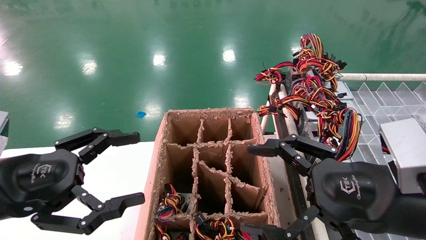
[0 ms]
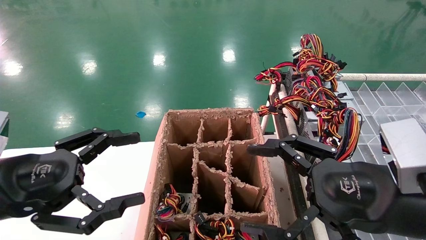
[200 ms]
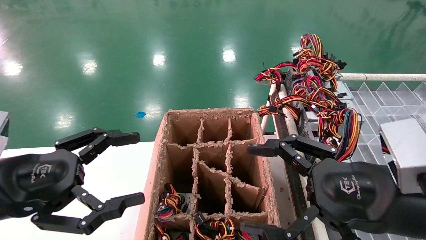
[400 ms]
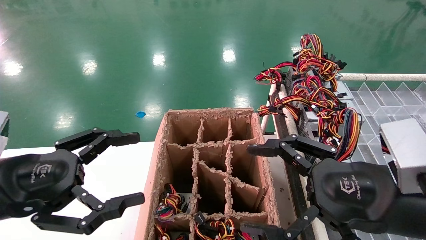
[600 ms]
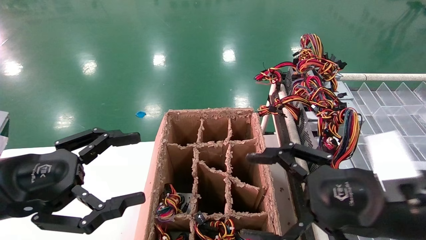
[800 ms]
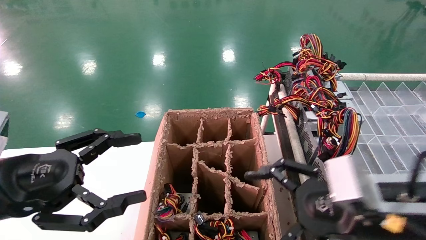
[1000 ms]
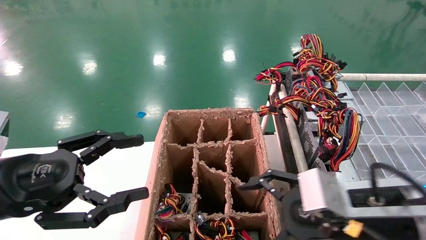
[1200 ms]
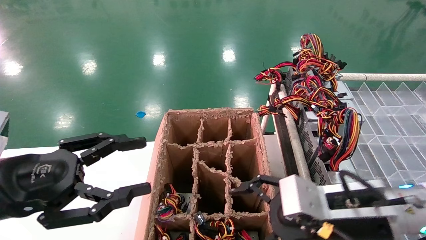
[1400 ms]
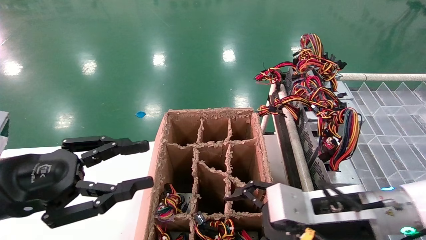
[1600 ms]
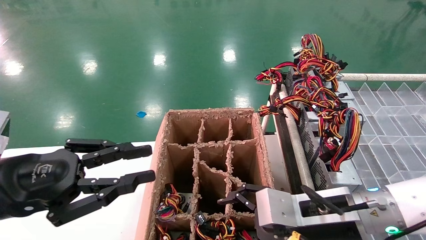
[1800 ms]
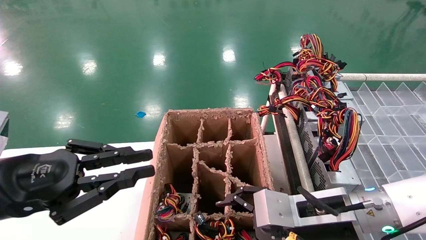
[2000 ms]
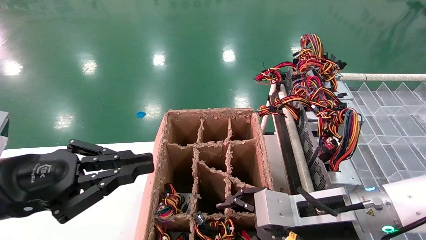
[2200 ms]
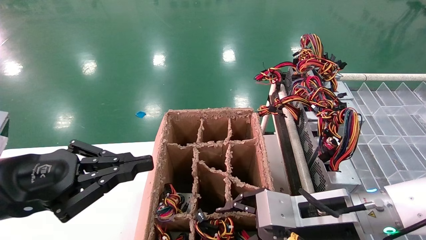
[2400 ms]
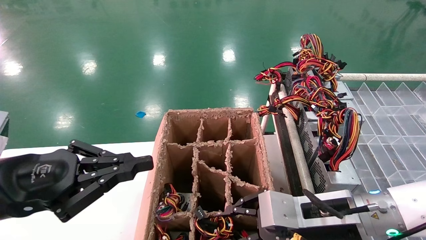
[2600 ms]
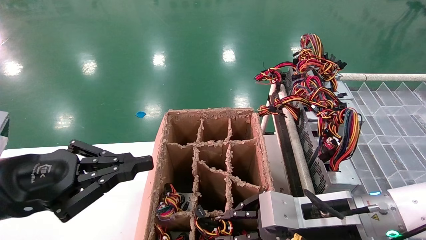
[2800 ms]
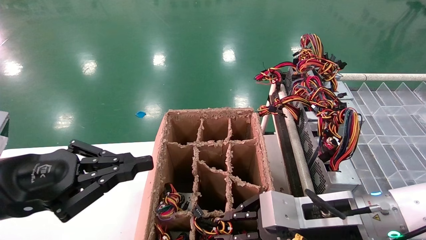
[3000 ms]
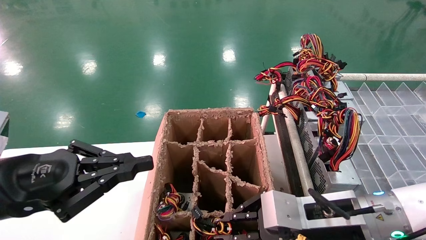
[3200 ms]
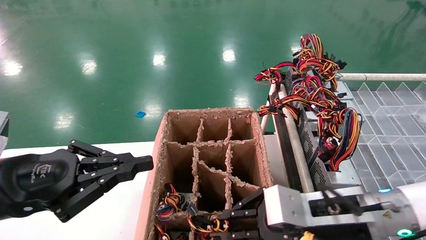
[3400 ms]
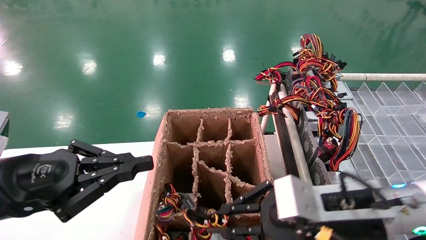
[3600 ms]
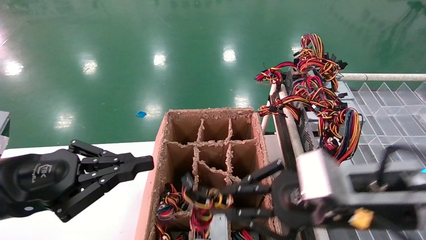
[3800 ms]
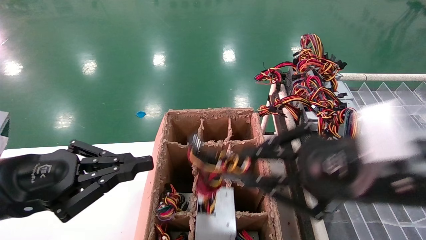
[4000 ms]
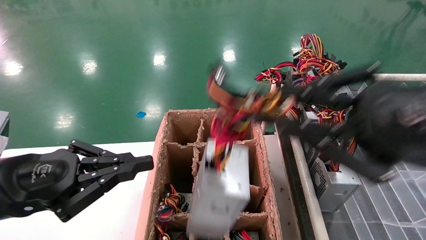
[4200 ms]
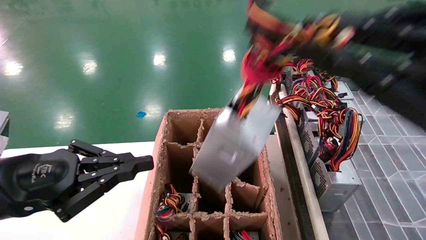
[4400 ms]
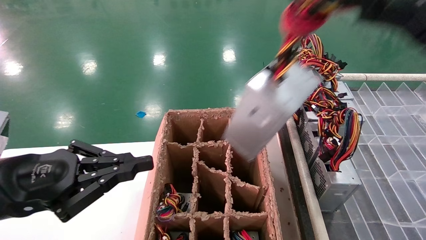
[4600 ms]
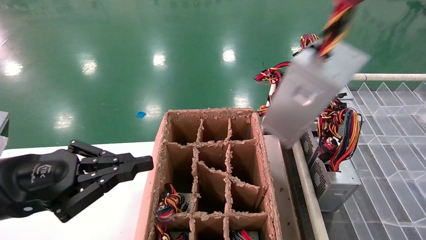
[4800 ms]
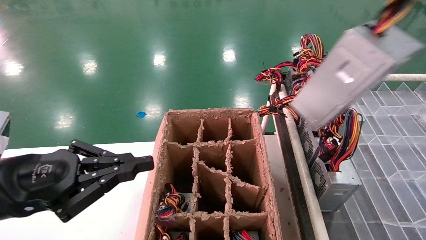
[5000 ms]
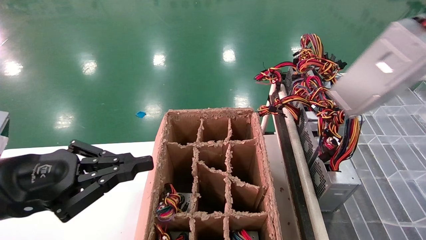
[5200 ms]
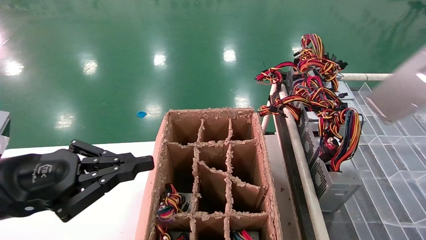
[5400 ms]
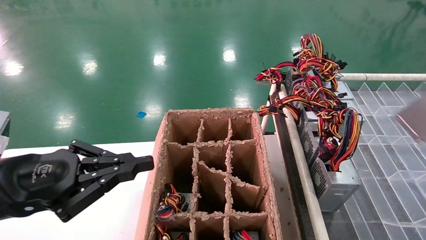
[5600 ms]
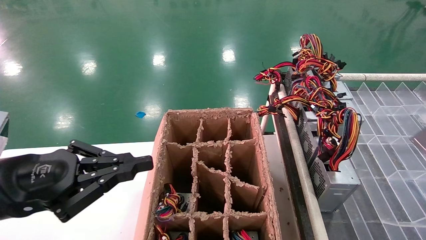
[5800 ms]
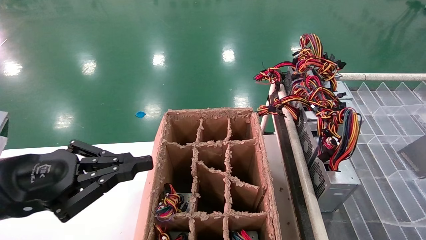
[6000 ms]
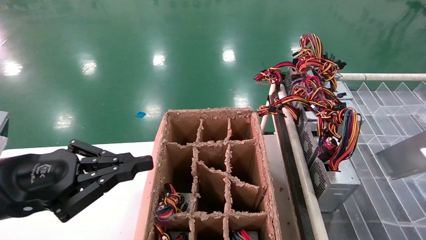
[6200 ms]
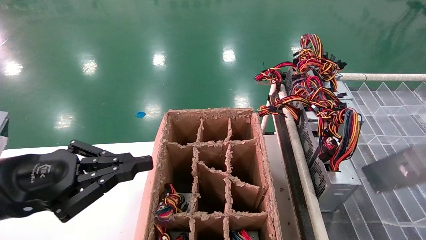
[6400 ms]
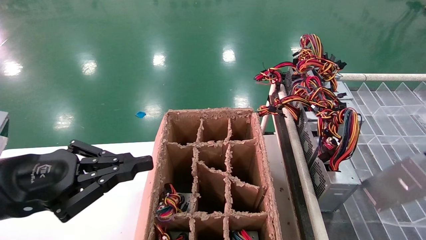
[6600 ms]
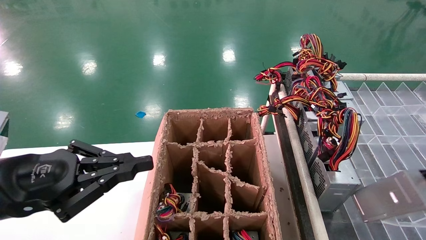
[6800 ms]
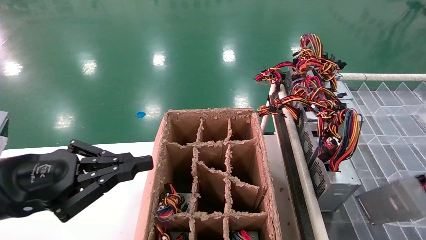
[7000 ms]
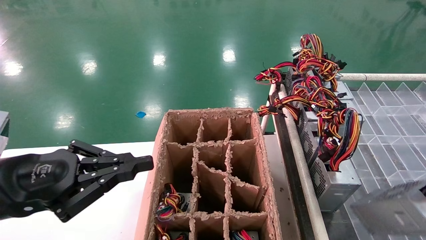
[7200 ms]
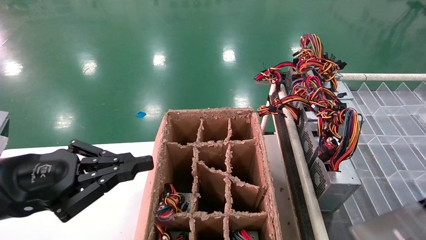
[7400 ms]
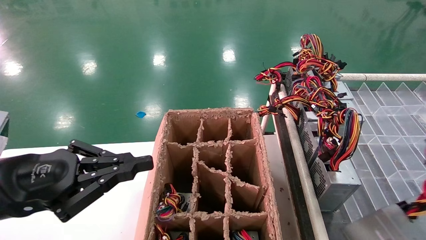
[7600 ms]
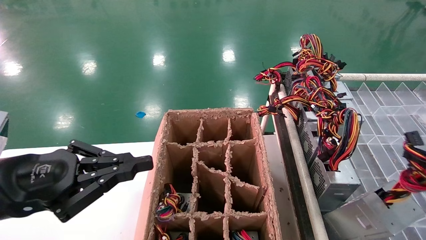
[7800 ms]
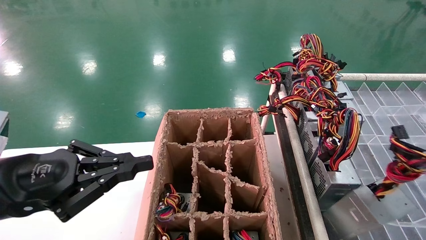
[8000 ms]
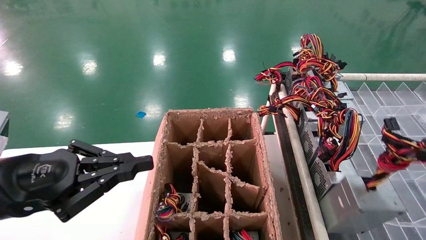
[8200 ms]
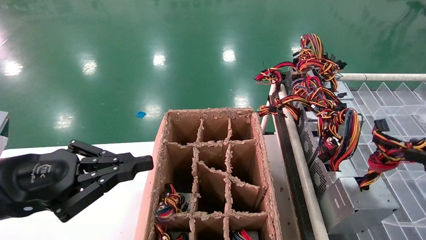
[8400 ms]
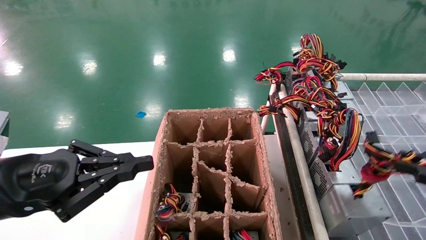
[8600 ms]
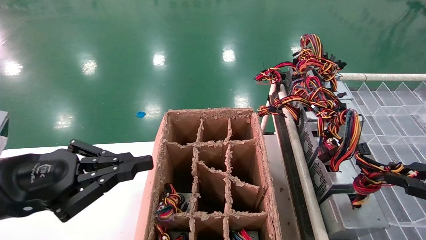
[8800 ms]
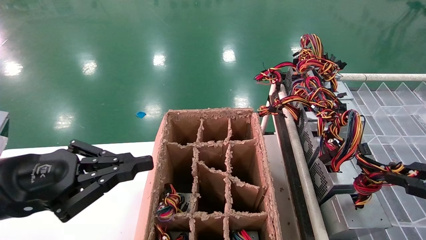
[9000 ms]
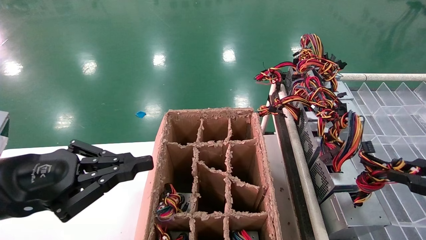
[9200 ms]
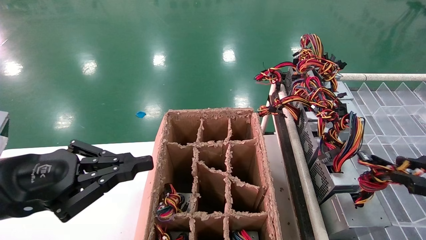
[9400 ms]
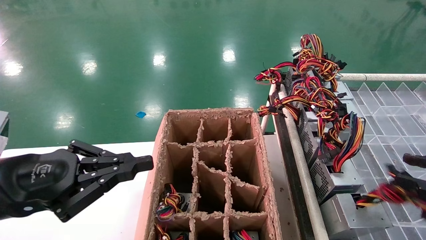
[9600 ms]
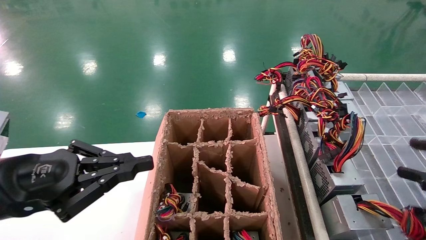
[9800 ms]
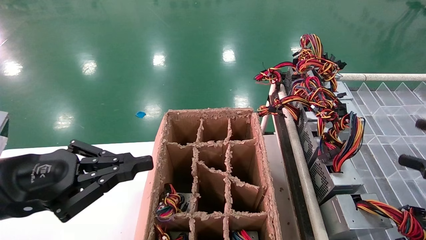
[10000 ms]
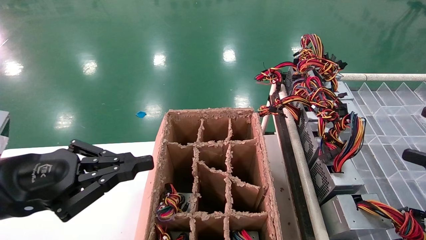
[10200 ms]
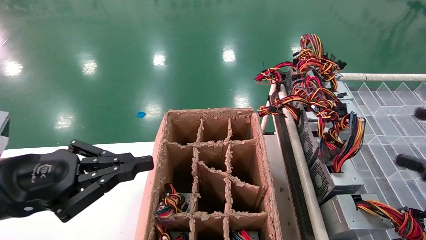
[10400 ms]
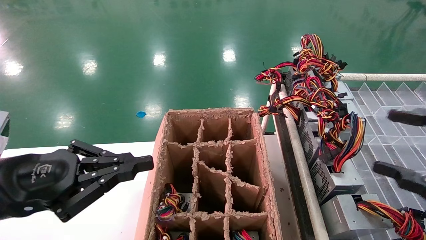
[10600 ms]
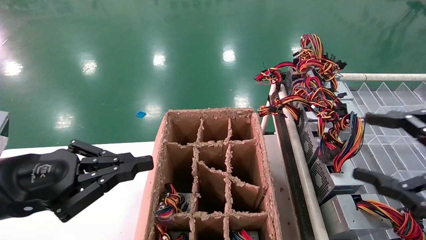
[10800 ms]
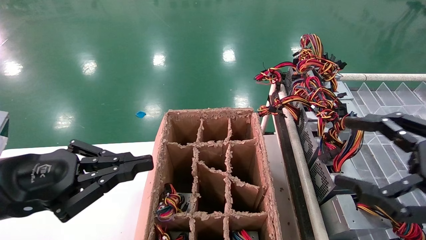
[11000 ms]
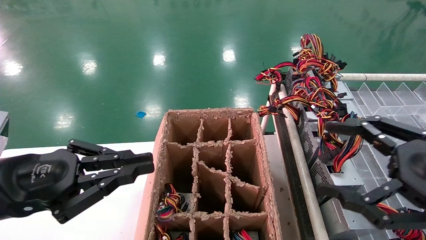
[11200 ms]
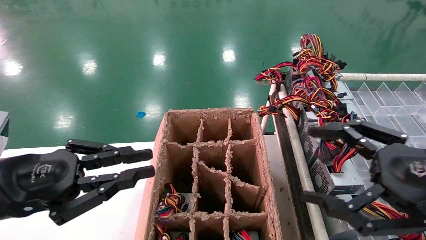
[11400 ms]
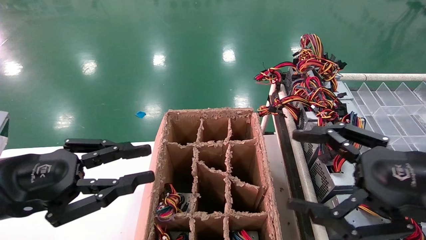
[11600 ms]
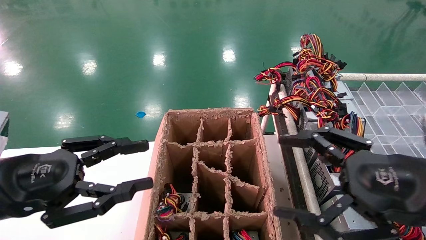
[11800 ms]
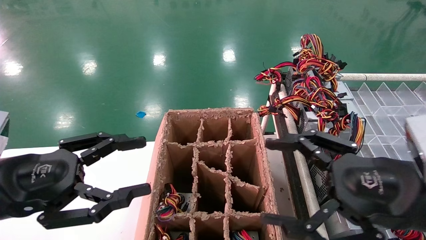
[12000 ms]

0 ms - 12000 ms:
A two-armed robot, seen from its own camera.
Step, 1200 ms - 3200 ms: Grab the main unit power supply from the containment box.
Step, 3400 ms - 9800 ms: Place the main unit power supply in the designated area.
0 ms - 1600 ms: The right gripper heads downward and forward, covering roughly 10 cm; the left gripper closes.
1600 ms - 3000 ms: The right gripper closes, while the left gripper closes up.
3000 ms - 4400 ms: The right gripper is displaced upward, backward and to the right by approximately 25 cm.
4400 ms - 6000 ms: The right gripper goes roughly 25 cm to the right and backward.
6000 ms - 7600 ms: The right gripper travels downward and to the left by roughly 10 cm.
7600 ms - 9000 ms: The right gripper goes roughly 5 cm forward.
9000 ms - 10400 ms: The right gripper opens its fingers.
10400 ms - 12000 ms: The right gripper travels to the left and forward by about 15 cm; the left gripper opens.

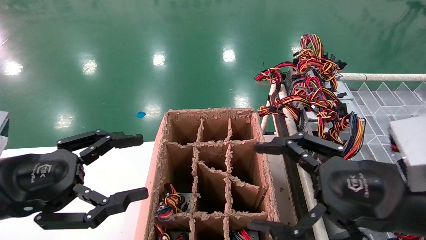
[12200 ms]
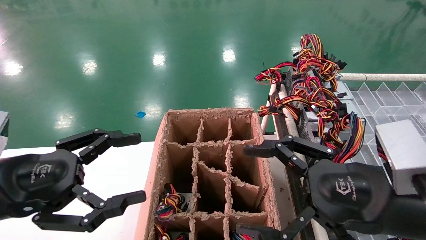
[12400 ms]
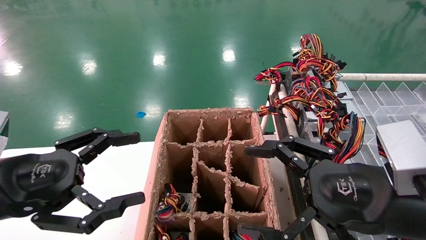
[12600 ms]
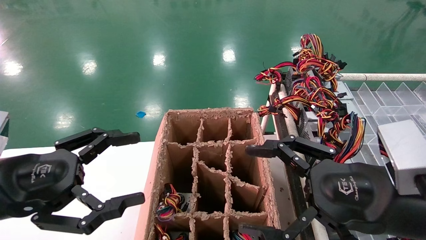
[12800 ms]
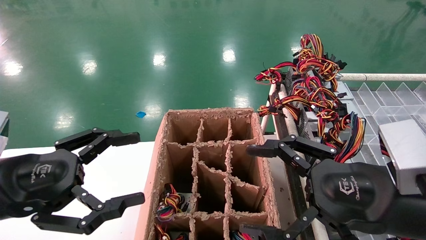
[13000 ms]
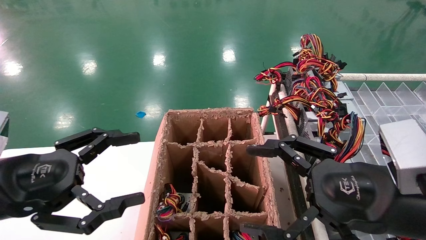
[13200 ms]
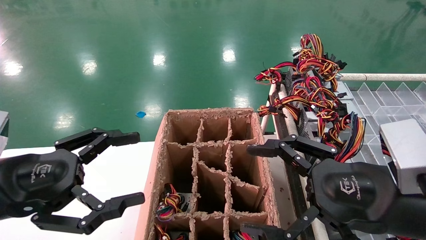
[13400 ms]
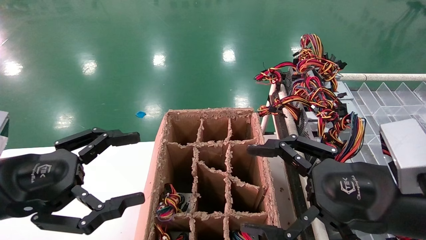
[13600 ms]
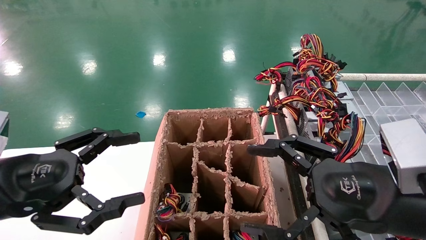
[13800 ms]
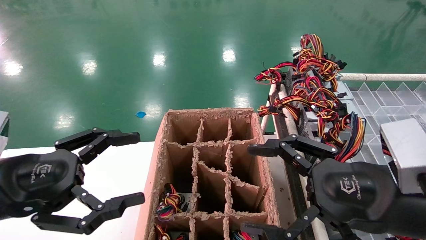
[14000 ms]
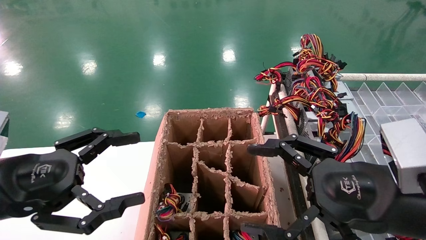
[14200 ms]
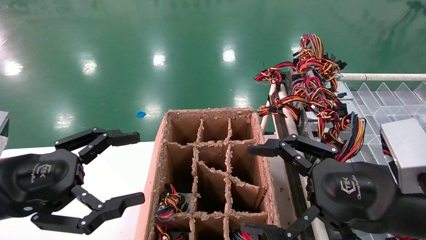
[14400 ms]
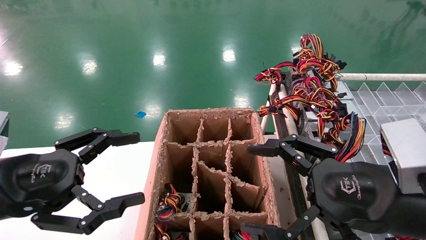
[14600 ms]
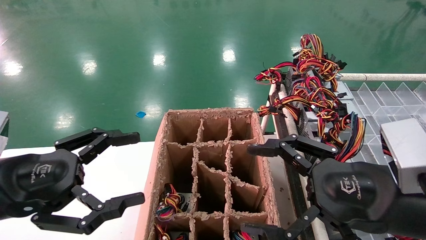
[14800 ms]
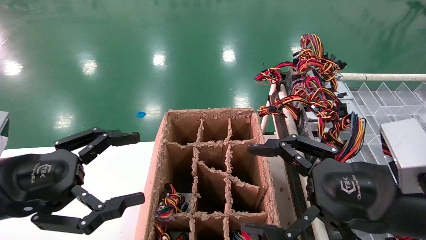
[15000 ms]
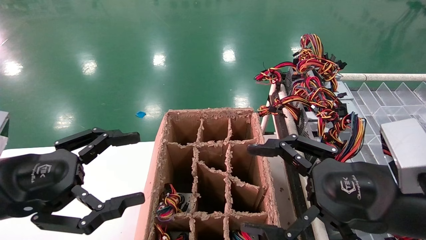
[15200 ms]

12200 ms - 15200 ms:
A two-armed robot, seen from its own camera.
12200 ms - 15200 ms: The two grippers keep their place.

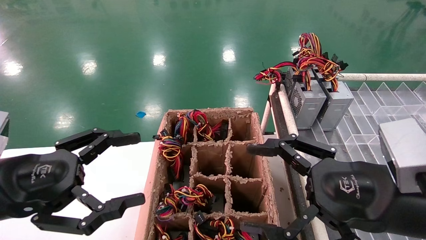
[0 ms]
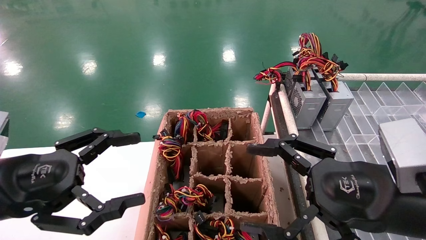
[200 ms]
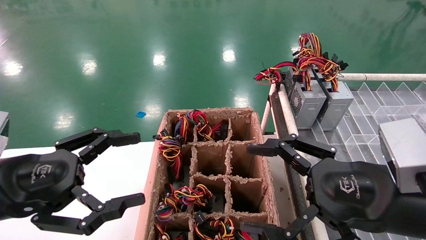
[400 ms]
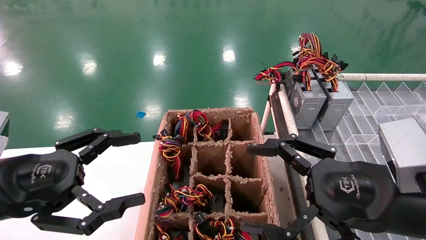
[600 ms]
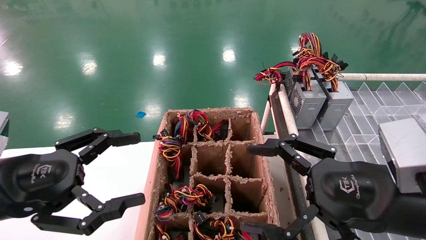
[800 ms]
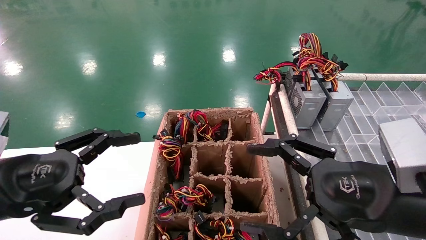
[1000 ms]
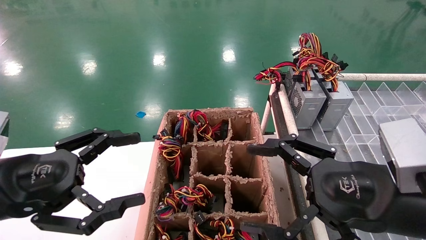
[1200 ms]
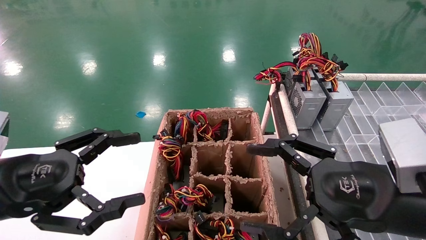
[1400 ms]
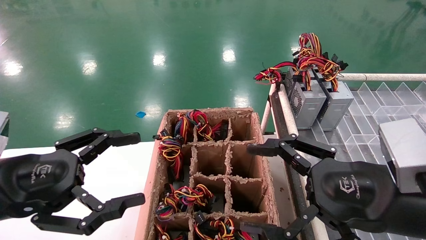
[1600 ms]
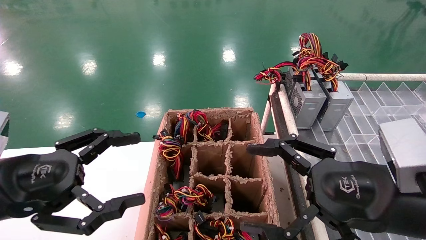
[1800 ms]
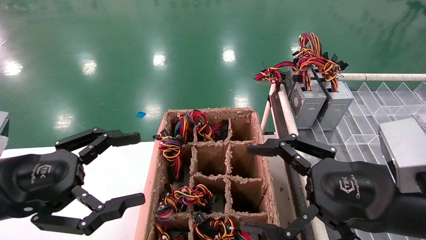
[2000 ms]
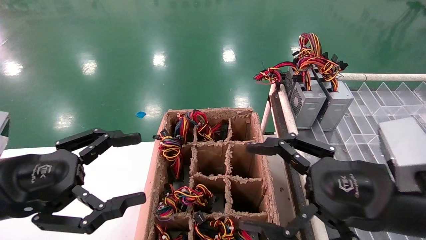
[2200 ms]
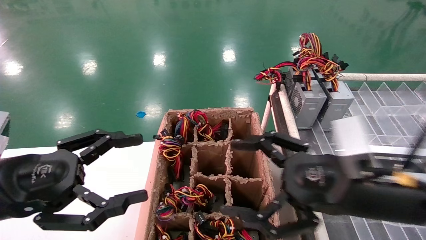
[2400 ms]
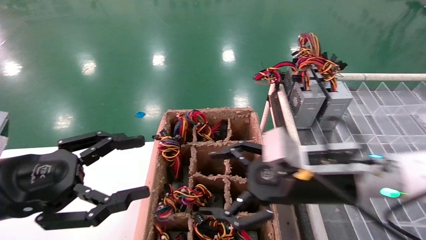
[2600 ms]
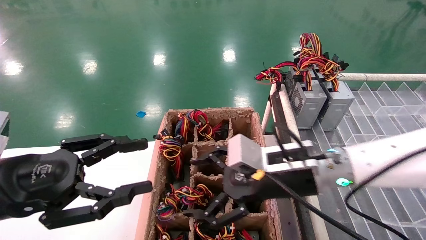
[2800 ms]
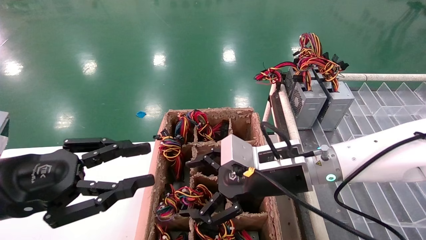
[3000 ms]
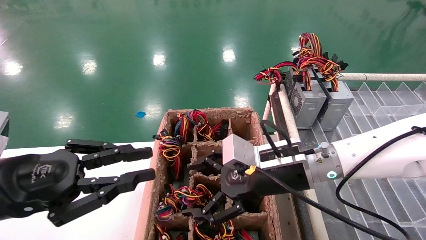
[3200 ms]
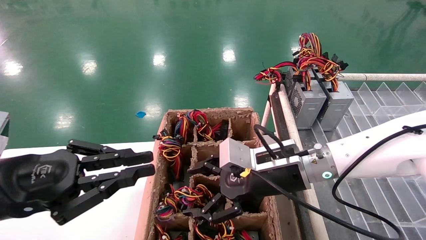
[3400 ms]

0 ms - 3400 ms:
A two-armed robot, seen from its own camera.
0 ms - 1600 ms: Both grippers stay put.
1600 ms - 3400 ms: The left gripper closes up. Meanwhile the right gripper shifts approximately 20 cm forward and to the left.
